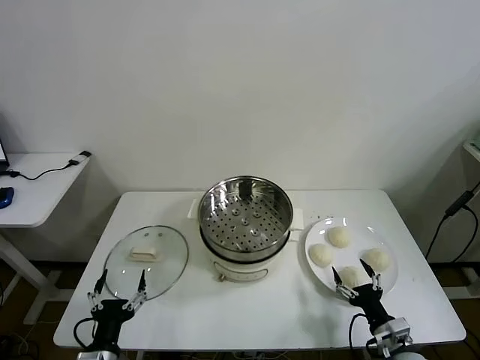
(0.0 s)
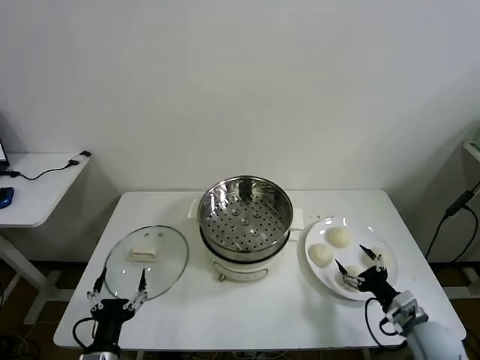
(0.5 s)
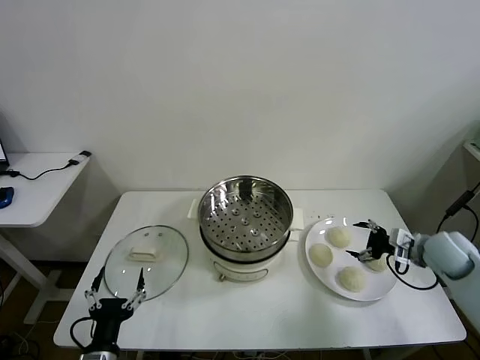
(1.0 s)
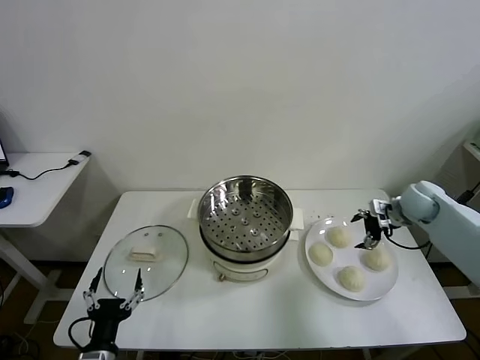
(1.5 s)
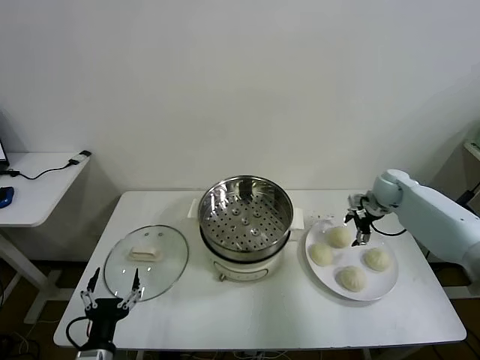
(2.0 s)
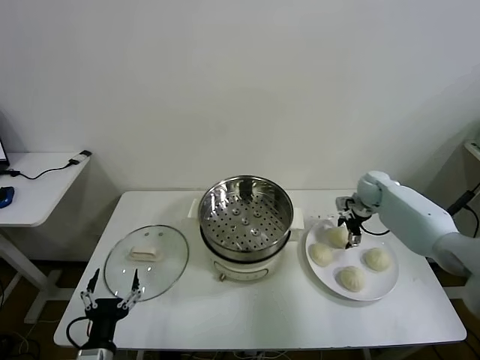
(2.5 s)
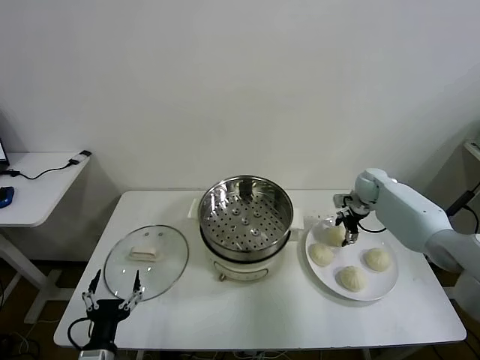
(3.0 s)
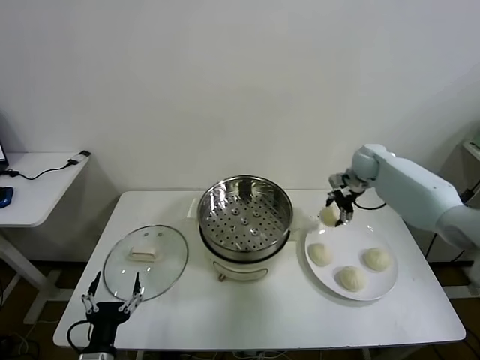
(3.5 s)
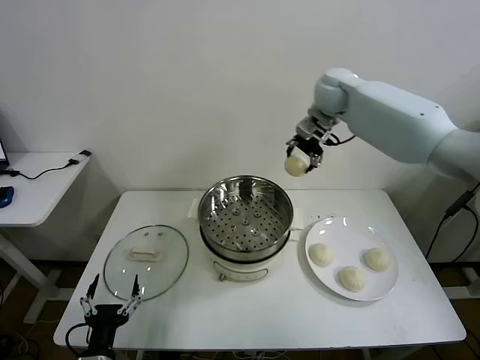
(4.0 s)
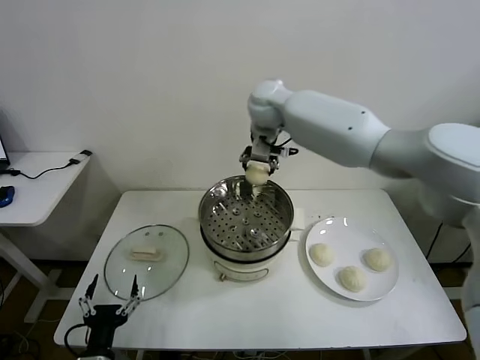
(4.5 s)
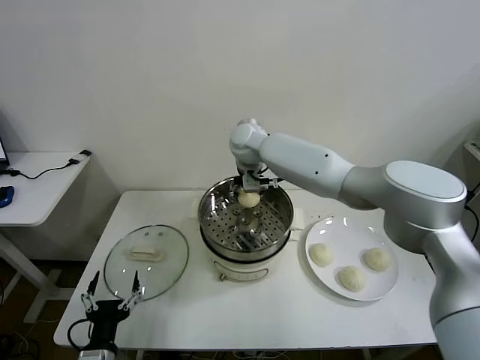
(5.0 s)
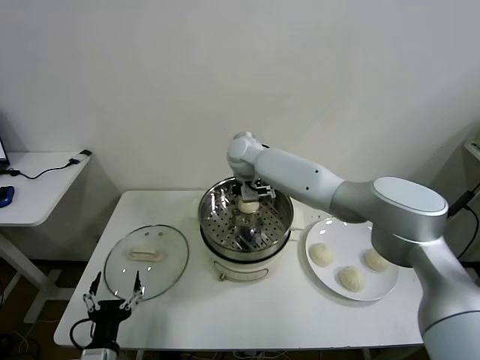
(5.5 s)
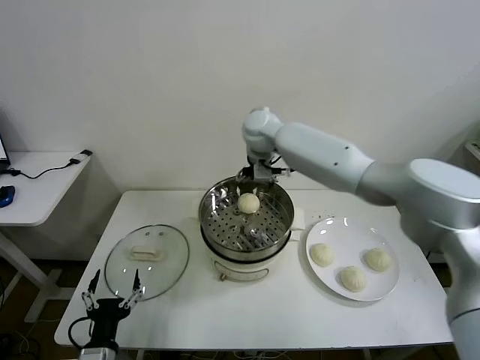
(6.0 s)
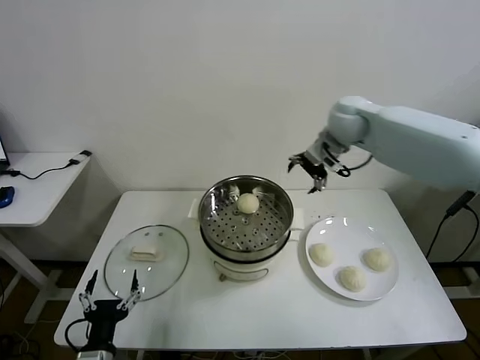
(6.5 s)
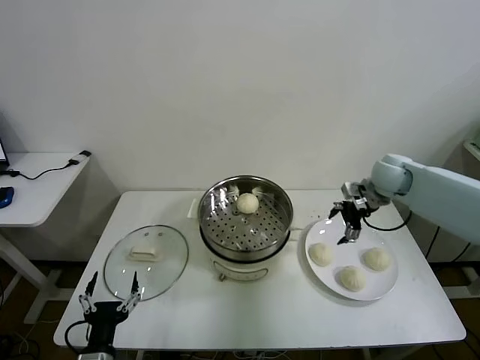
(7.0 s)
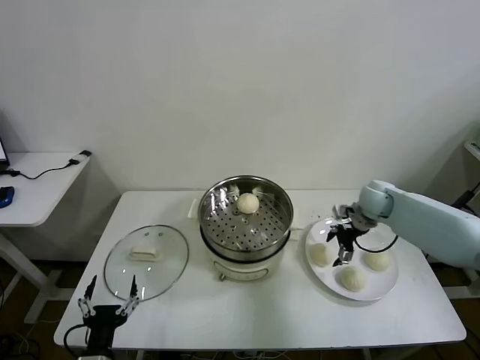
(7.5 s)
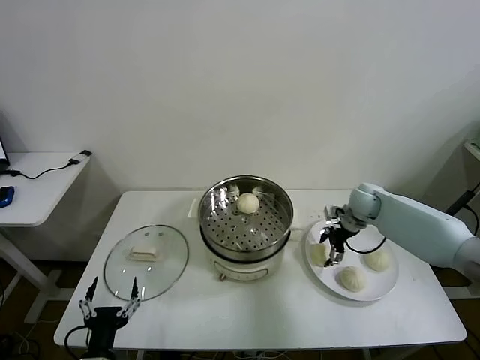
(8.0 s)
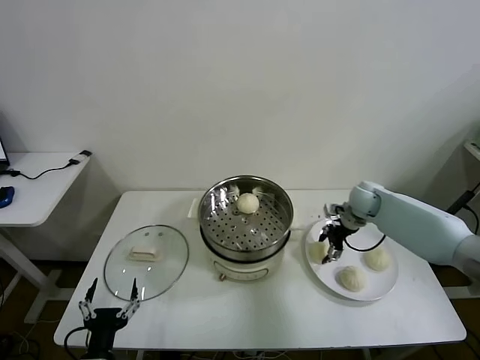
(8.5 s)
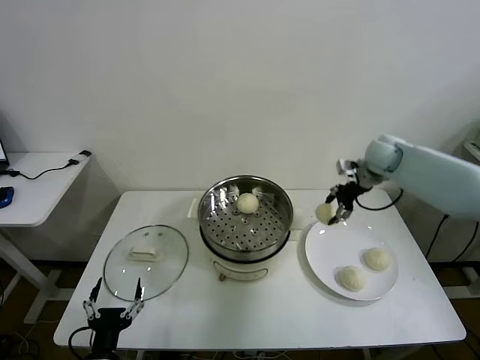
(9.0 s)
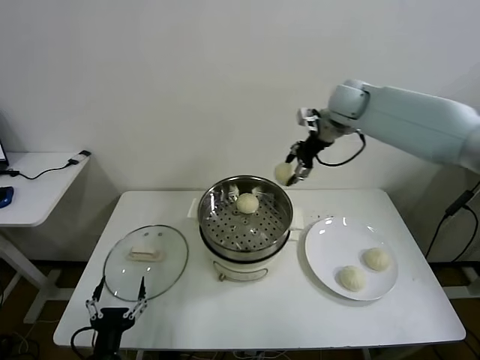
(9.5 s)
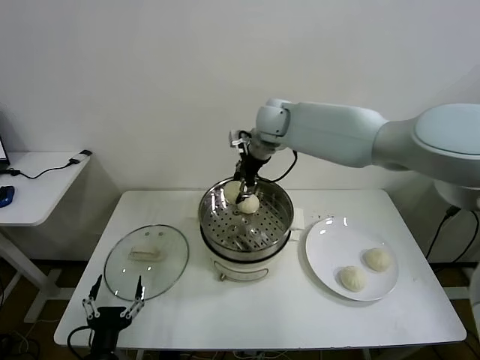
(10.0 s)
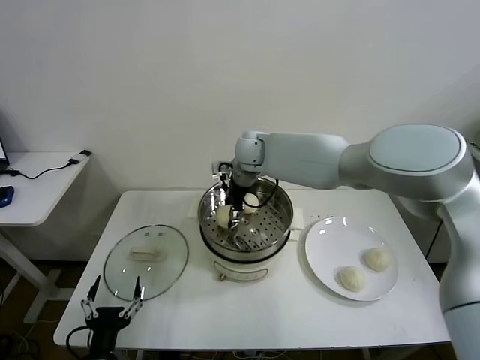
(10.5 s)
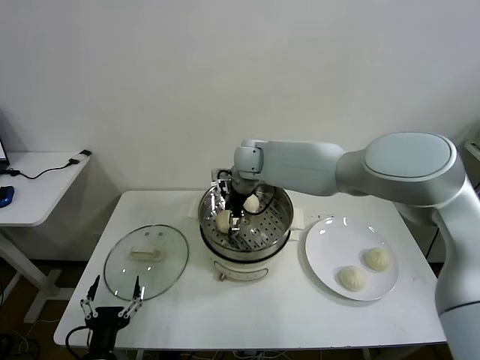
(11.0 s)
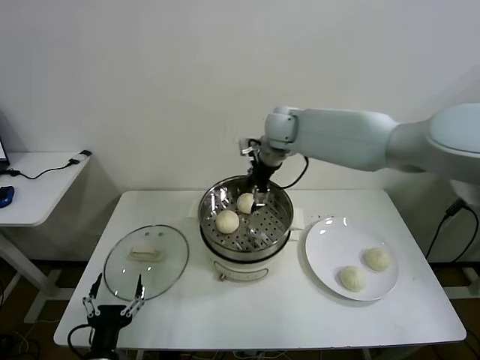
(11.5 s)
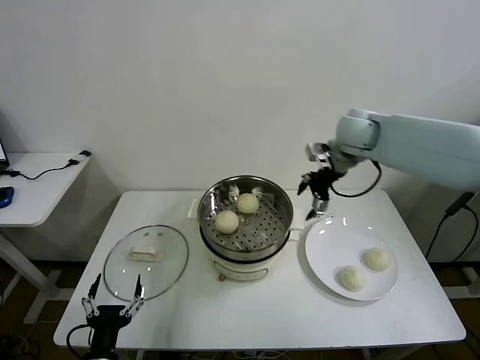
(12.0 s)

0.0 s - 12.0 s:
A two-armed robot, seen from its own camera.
Task of the whole recording: take steamed baozi put them in steamer then cover it.
Step, 0.0 s - 3.0 s: Grasp the baozi in the plate with right gripper.
Step, 3.5 s - 6.0 s: Place the baozi on the steamer with right gripper.
Step, 6.5 s - 8.0 s: Grasp the baozi in the plate with right gripper.
Step, 9.0 s - 11.0 s: Place the baozi on the steamer with right gripper.
2.0 s - 4.0 s: The right gripper is displaced upward and to the left by about 35 cm, and closes its fingers.
4.0 s - 6.0 s: The right gripper shifts about 10 cm to the left and downward, and opens.
6.0 s - 8.0 s: The right gripper heads to the right and downward, covering about 35 cm.
8.0 s - 10.0 s: The right gripper heads to the left and upward, covering about 35 cm, and closes its fingers.
10.0 s - 12.0 s: The right gripper heads to the right, covering roughly 20 cm, and opens up.

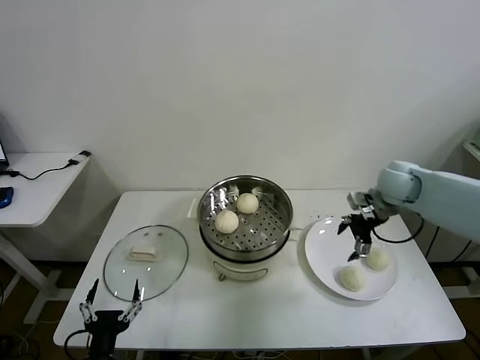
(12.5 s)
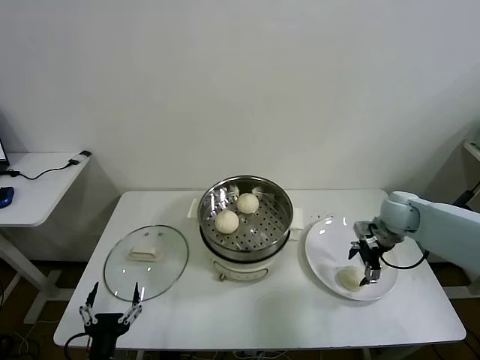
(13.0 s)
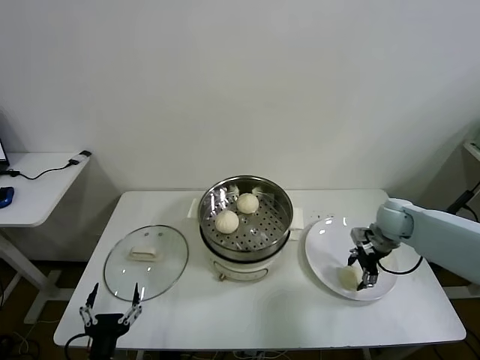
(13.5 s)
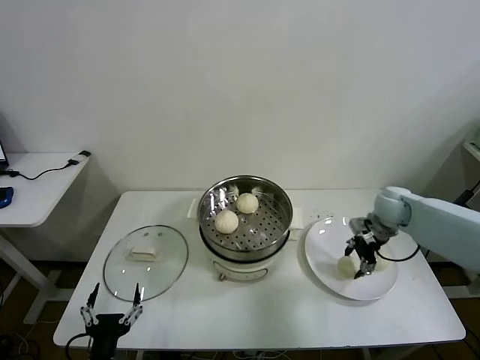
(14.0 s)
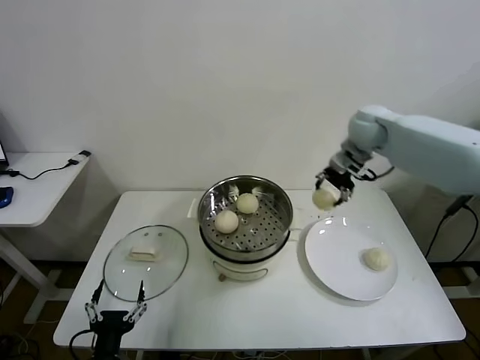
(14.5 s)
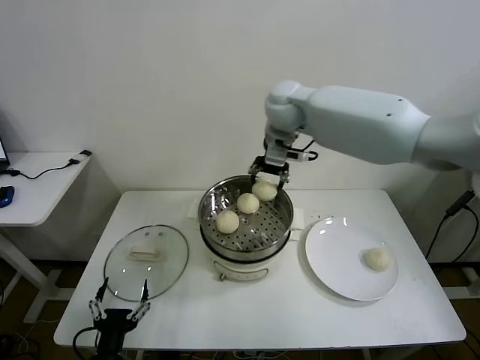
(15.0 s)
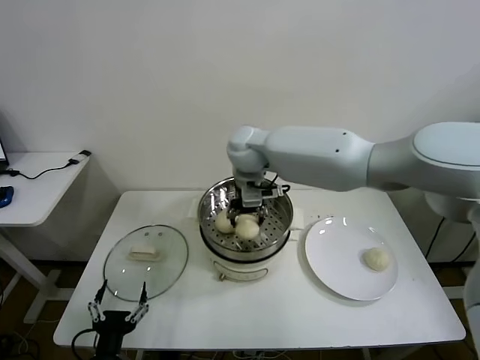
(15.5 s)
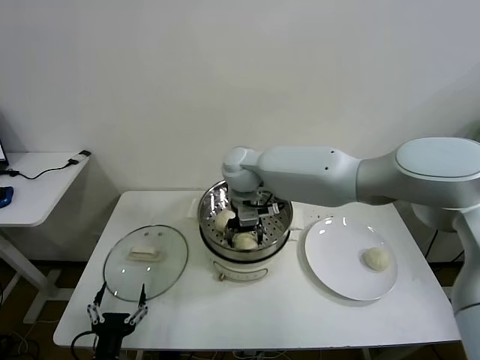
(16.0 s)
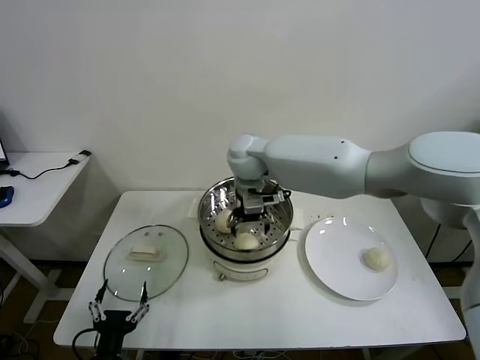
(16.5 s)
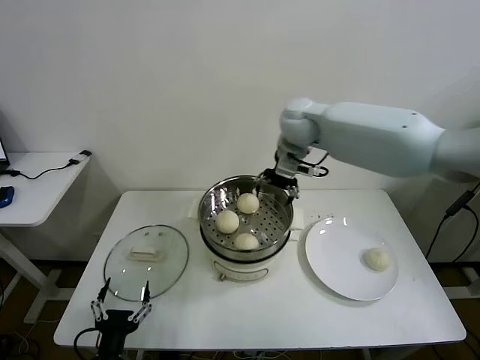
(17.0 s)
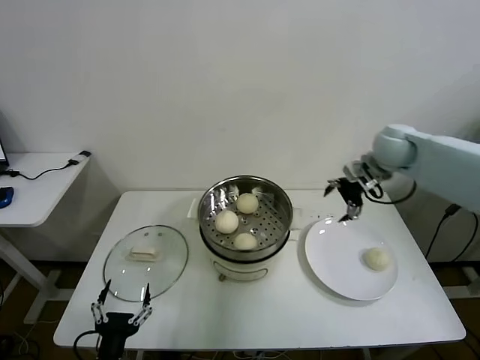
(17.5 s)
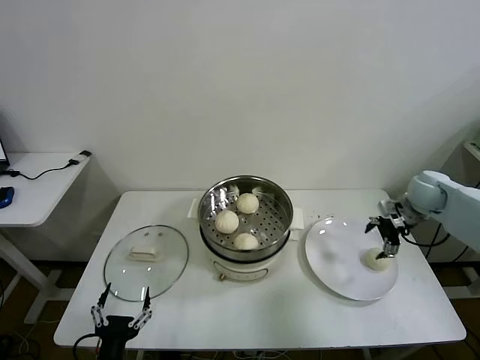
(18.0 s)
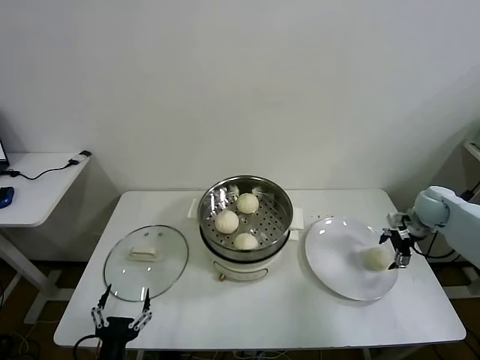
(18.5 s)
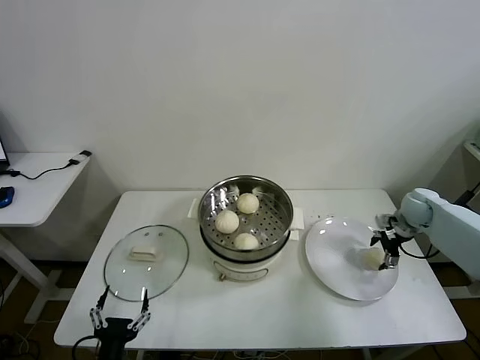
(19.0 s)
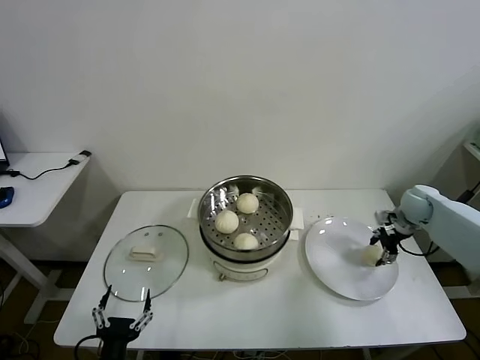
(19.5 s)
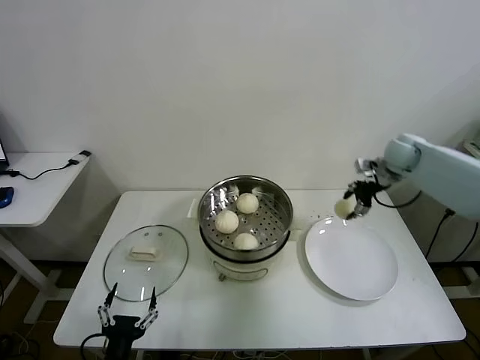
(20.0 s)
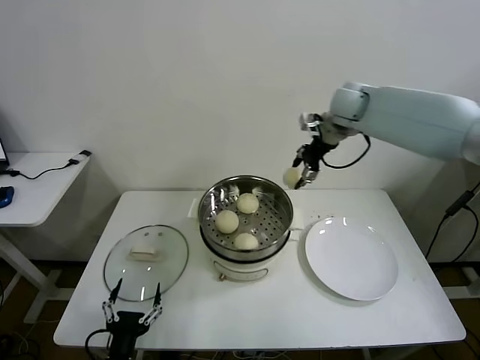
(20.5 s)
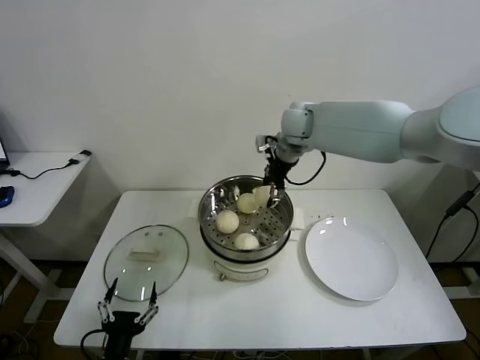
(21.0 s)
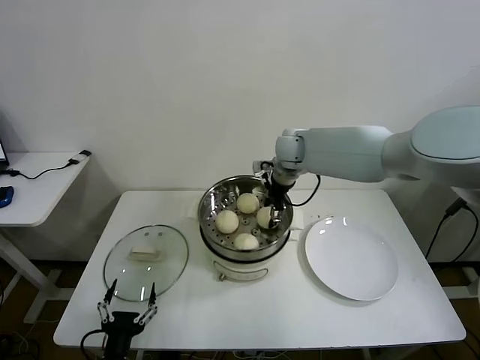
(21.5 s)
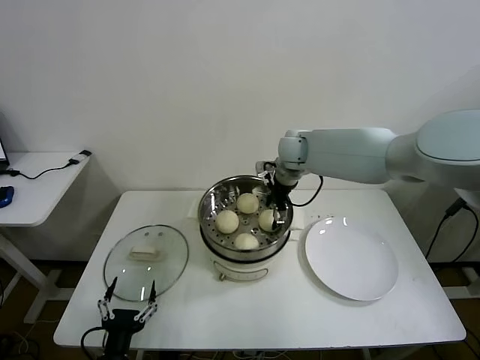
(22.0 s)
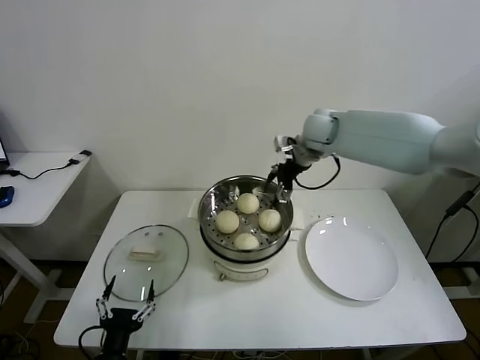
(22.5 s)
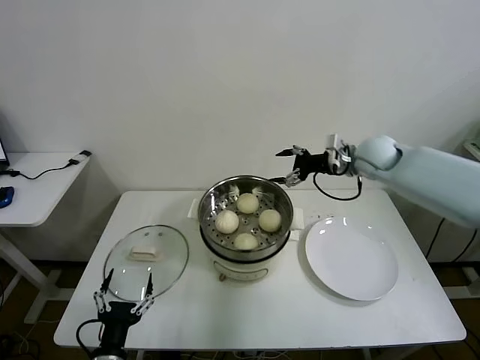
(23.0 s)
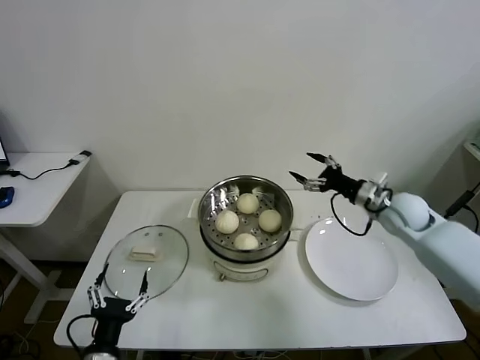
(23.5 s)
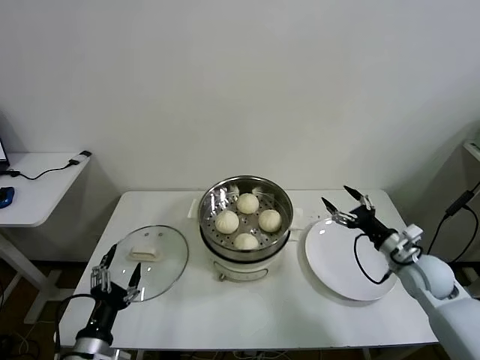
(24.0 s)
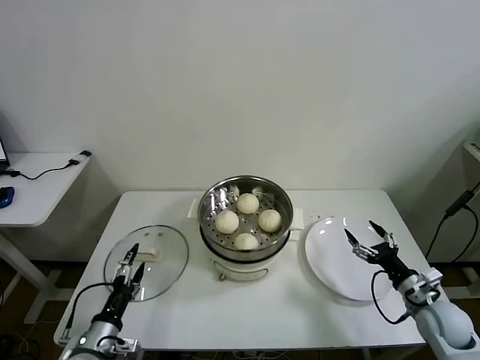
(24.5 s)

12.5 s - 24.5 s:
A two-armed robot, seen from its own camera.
Task of the whole recording: take steamed baozi put them in steamer then cover it.
Step, 14.0 s - 16.0 s: Place the baozi on the steamer with right gripper.
Step, 16.5 s - 19.0 s: Grasp the baozi in the plate with right gripper.
Step, 19.5 s - 22.0 s: Place the baozi on the steamer with right gripper.
12.5 s - 14.5 s: The right gripper moves upward, to the left and forward, some 20 cm, and closes its fingers.
14.5 s - 16.5 s: The right gripper shifts about 25 cm to the left, and opens.
16.5 s - 18.5 s: The right gripper is displaced to the right by some 50 cm.
18.5 s - 20.5 s: The right gripper moves to the left, upward and forward, roughly 35 cm, and closes its fingers.
20.5 s - 22.5 s: The right gripper moves downward, some 5 cm, and opens.
22.5 s - 24.5 s: The right gripper travels backward, downward and to the right by some 50 cm, while the left gripper shifts approximately 10 cm forward and to the left.

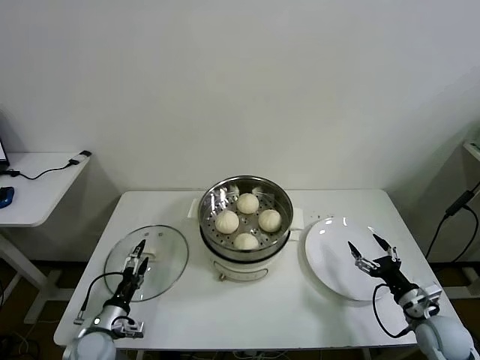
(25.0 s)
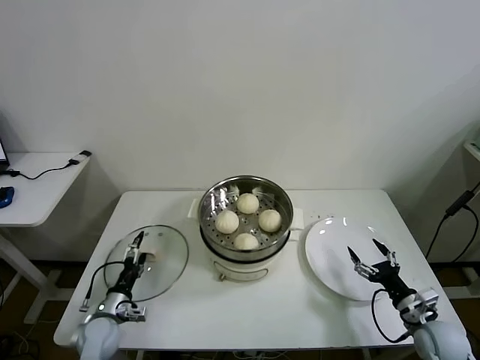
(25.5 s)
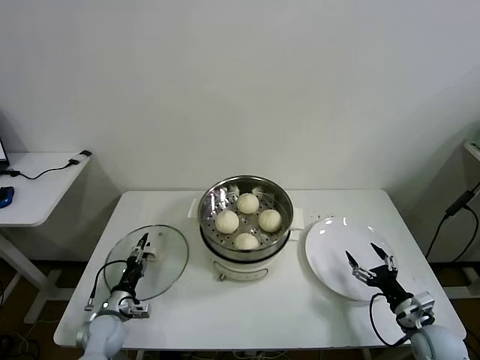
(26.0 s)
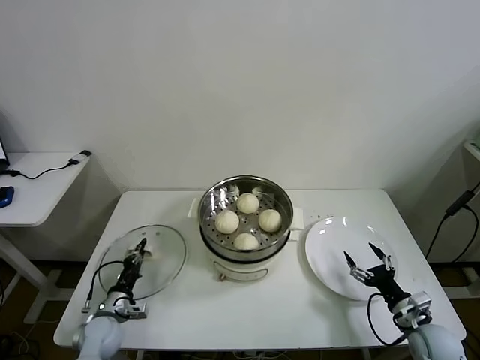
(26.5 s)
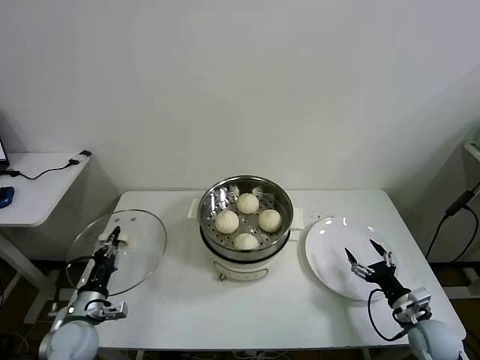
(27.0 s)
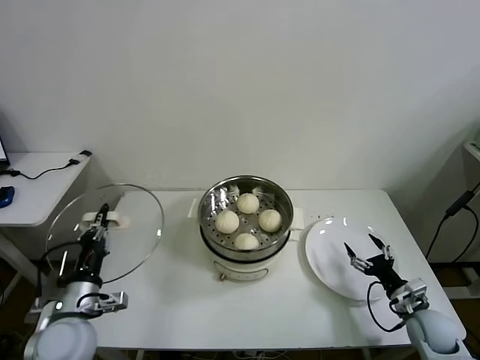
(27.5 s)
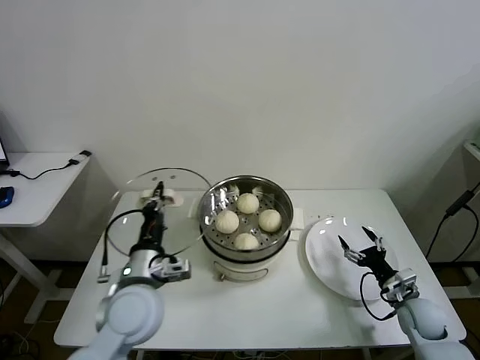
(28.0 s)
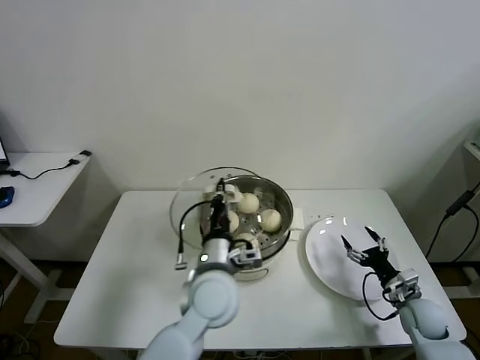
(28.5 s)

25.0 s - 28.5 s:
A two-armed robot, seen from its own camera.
Task of the whole recording: take steamed baozi put them in steamer then cover it.
25.0 s - 27.0 s: The left gripper ends up about 5 cm from where it was, and closes its fingers.
27.0 s - 28.5 s: The left gripper moves to the right and upward, roughly 35 cm. The right gripper goes about 5 cm forward.
